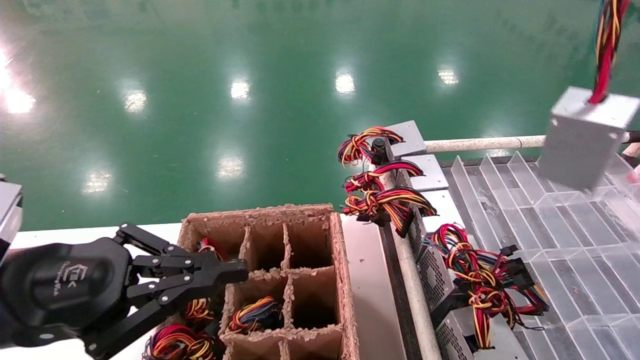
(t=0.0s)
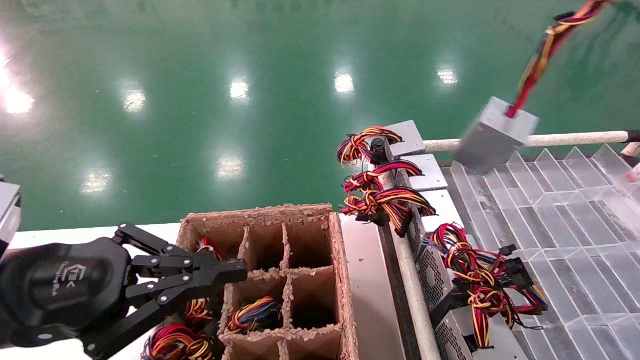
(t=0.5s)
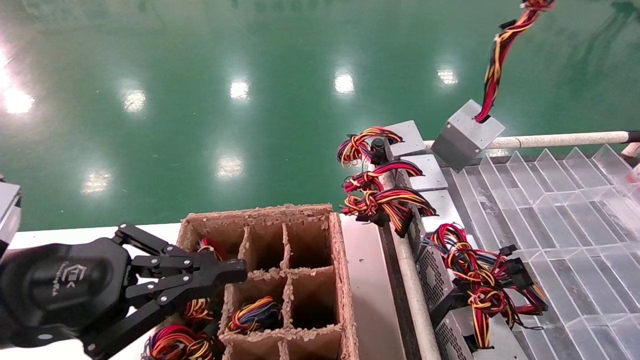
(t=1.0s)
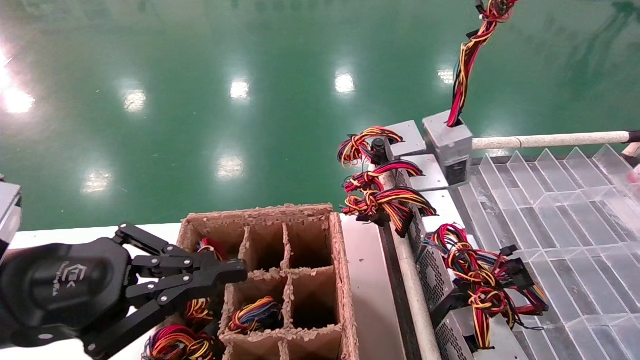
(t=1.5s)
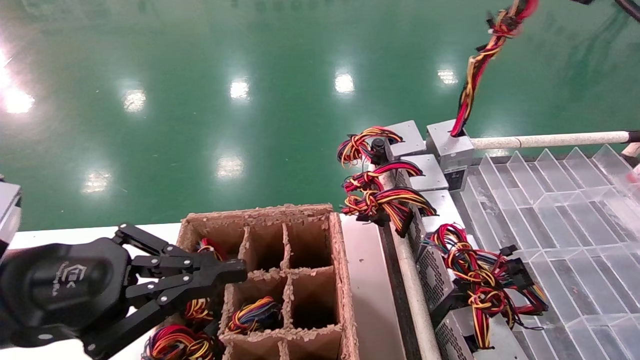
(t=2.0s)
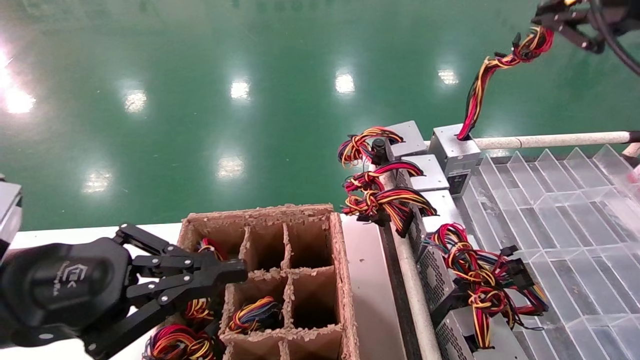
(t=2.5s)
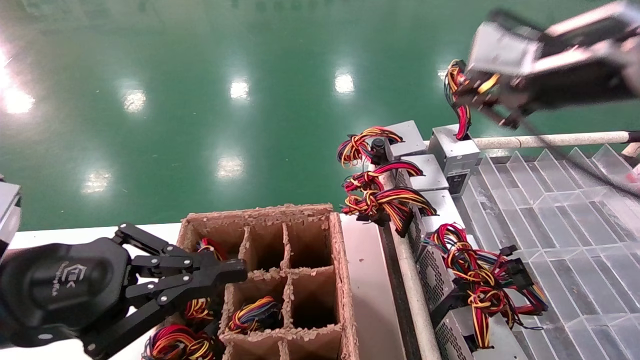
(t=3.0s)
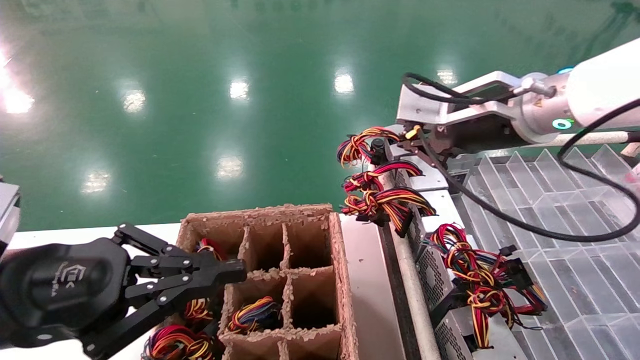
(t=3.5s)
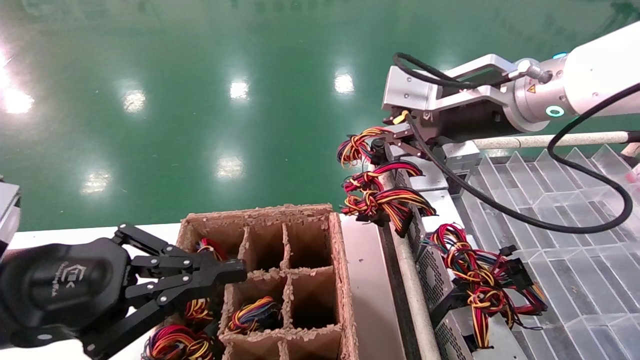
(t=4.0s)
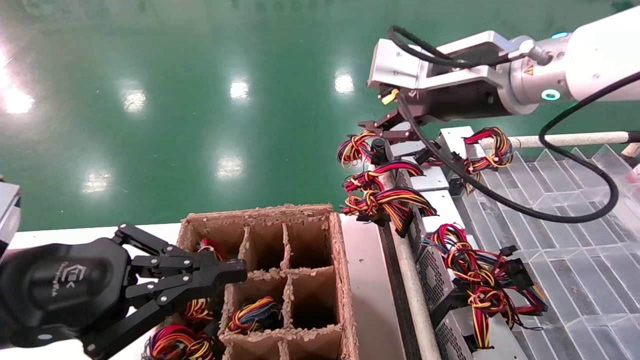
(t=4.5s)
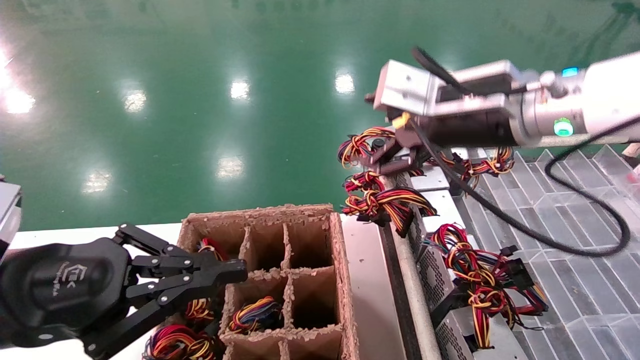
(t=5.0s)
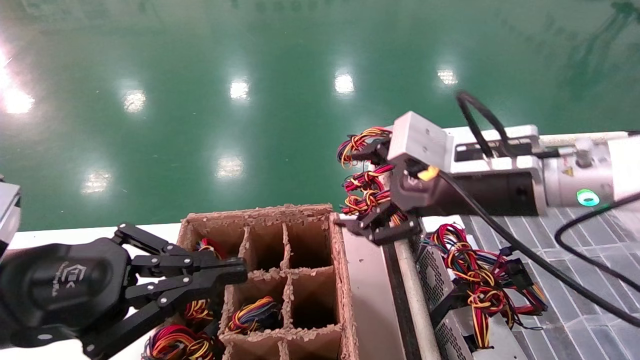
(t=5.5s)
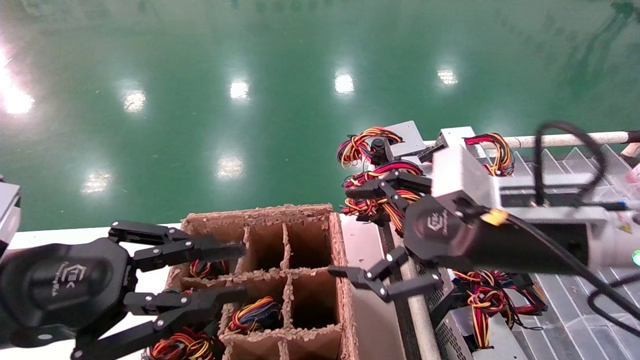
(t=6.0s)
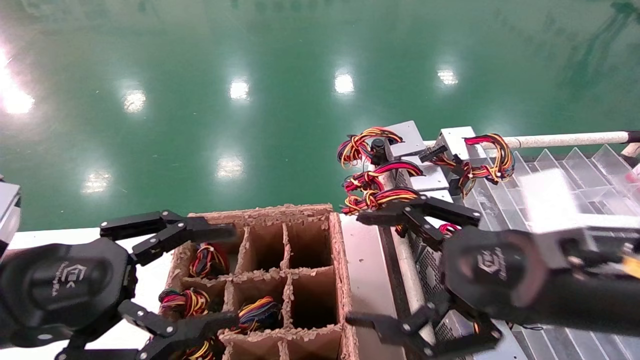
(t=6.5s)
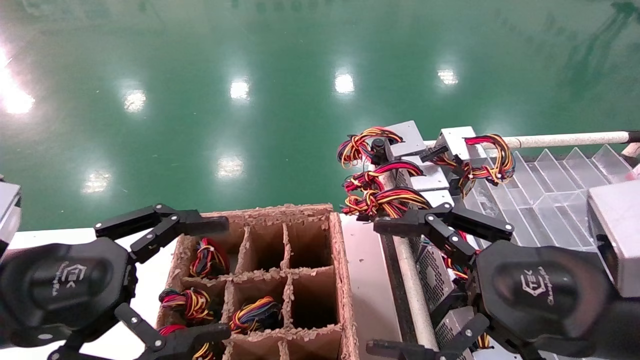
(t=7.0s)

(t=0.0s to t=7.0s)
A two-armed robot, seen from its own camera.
Step, t=0.0s - t=3.5s: Place the main unit power supply in the designated area.
t=0.0s - t=2.0s: The right gripper goes approximately 10 cm forward and downward.
t=2.0s - t=3.5s: The right gripper travels downward, forward and to the left by approximately 20 cm.
t=3.5s - t=5.0s: The right gripper opens up.
t=5.0s - t=7.0s: The left gripper opens its fingers, while the right gripper shifts some 20 cm backward, downward and to the right.

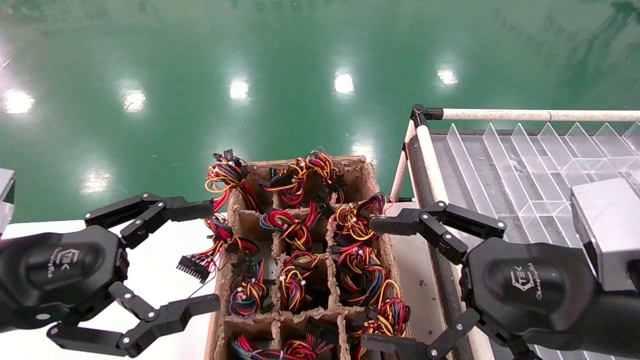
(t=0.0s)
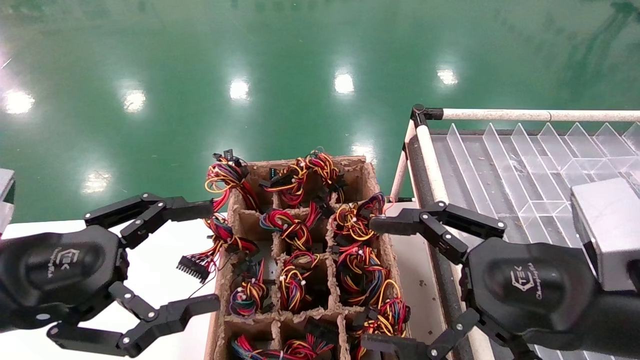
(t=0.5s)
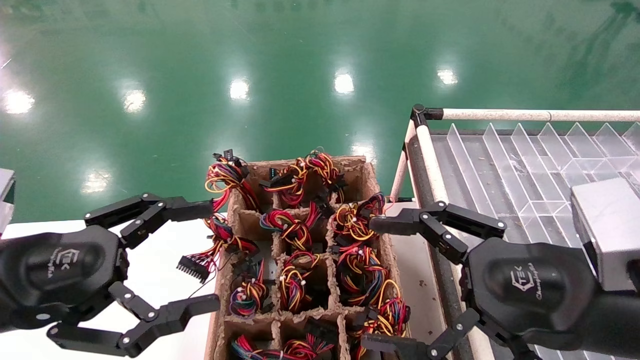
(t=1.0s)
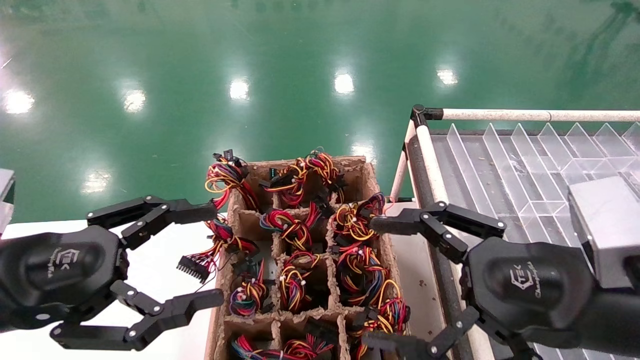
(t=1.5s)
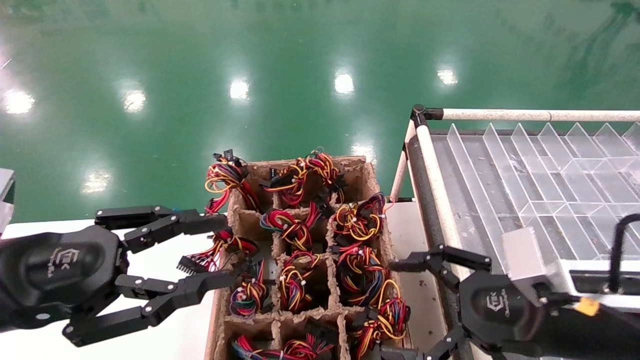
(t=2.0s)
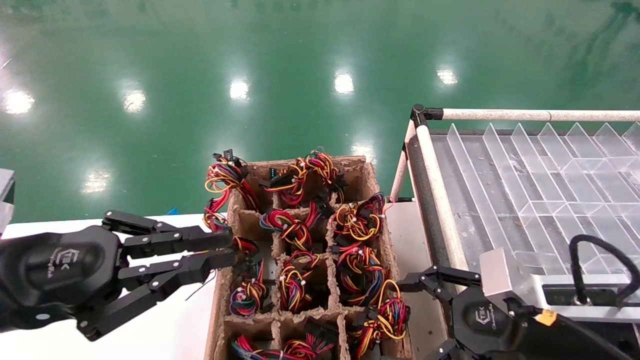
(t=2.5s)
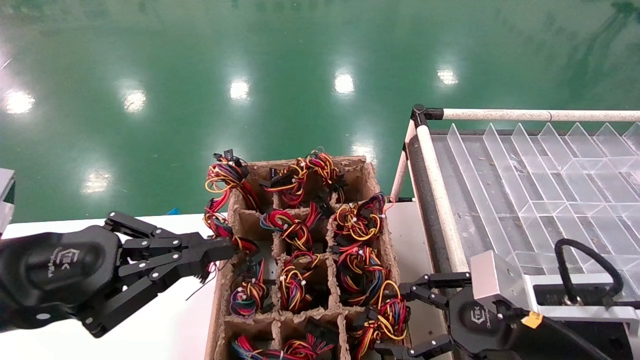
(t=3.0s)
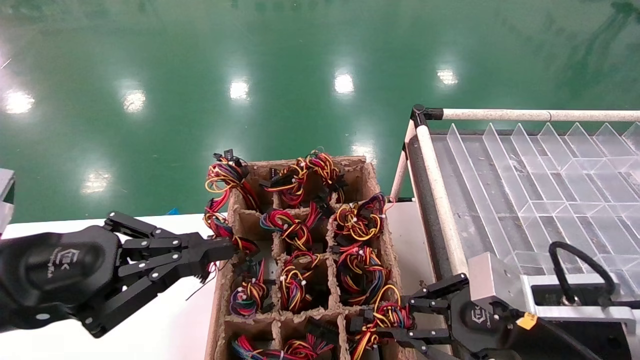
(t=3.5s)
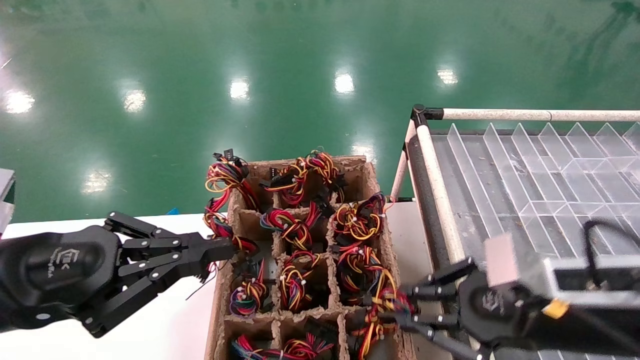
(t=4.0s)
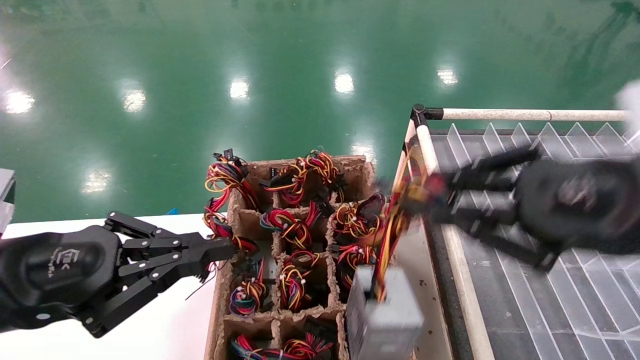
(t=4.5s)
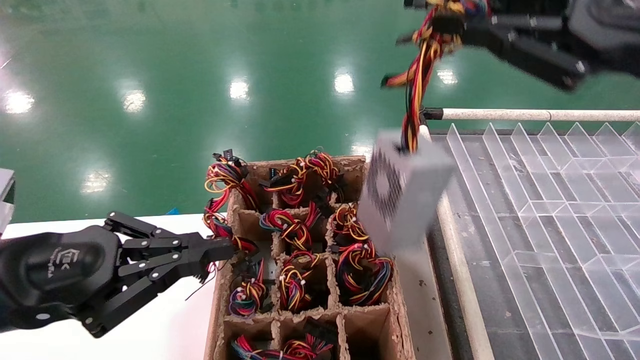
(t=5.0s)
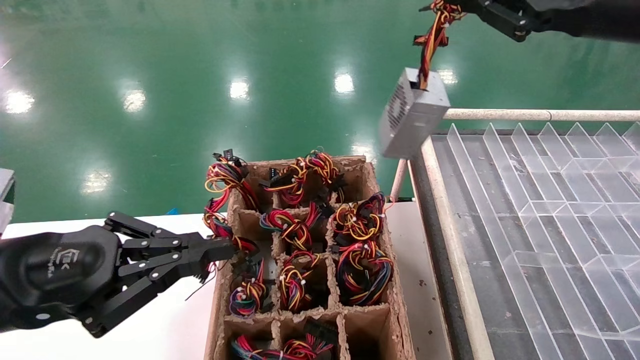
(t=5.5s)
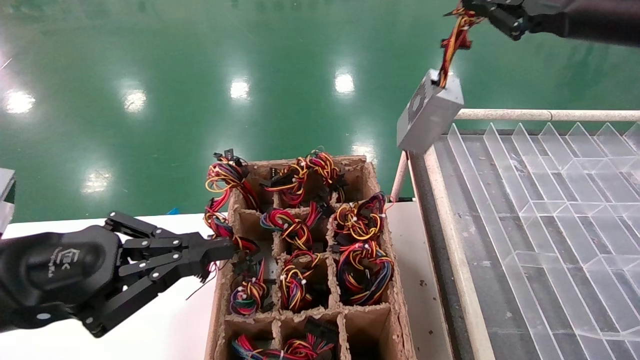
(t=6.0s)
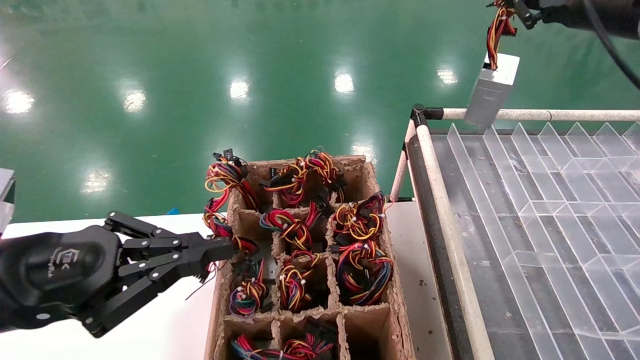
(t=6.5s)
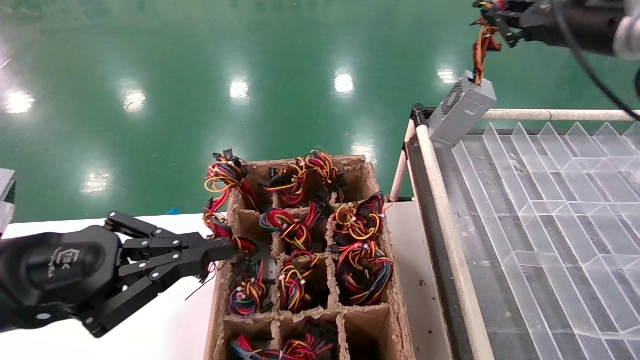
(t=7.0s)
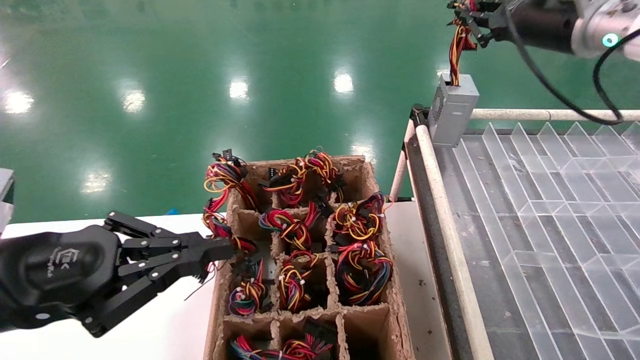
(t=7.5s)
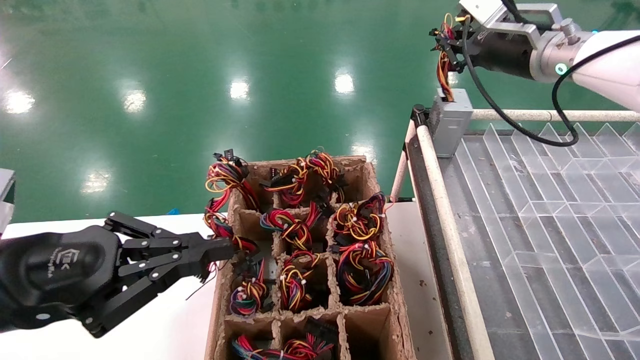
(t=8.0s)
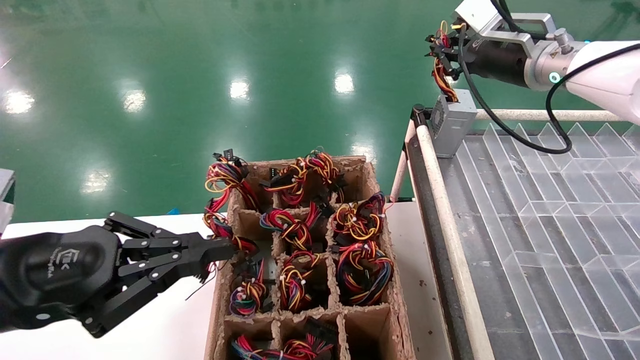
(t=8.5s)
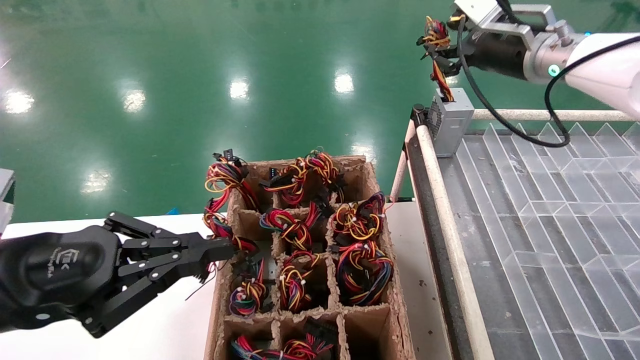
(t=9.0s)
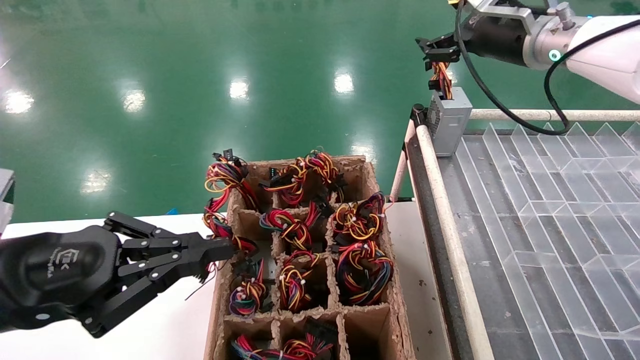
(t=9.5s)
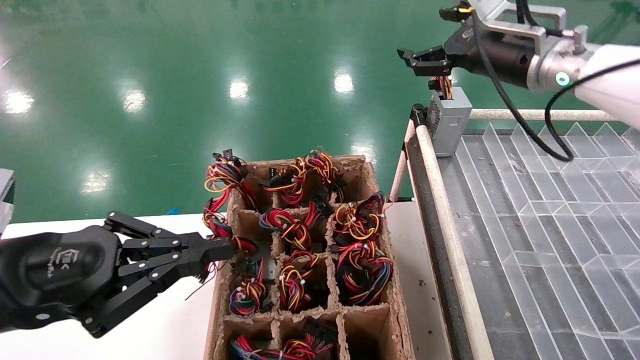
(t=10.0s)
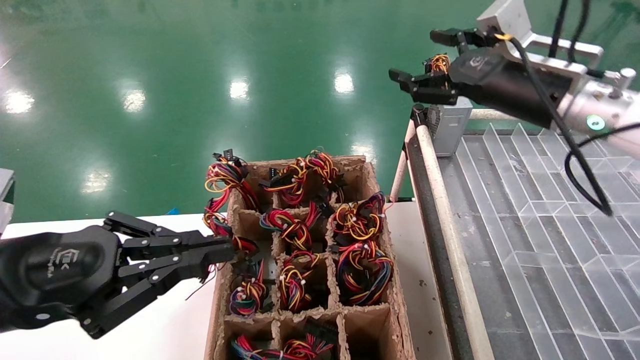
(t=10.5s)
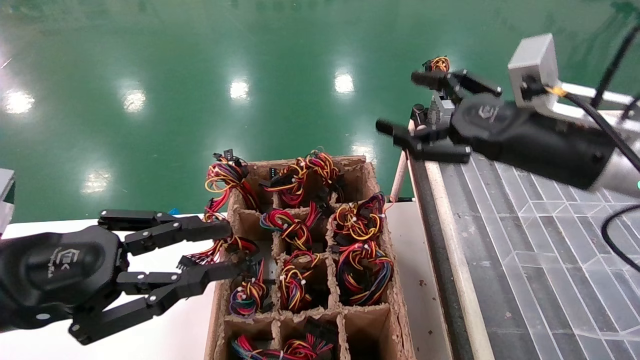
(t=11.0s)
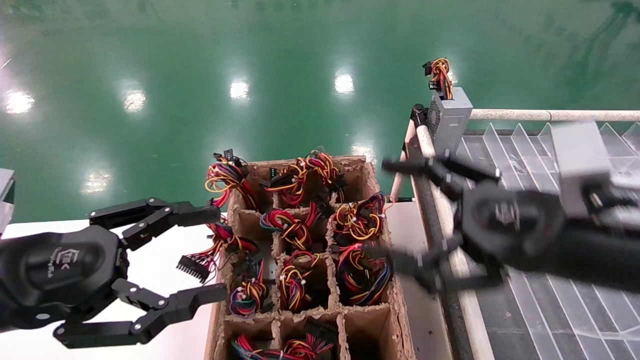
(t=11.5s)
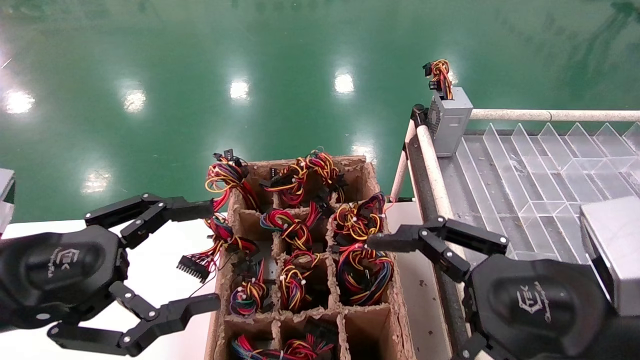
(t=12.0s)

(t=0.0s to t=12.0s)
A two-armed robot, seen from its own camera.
Step, t=2.0s - t=3.5s: Grab the main unit power supply from the containment box.
Step, t=4.0s - t=9.5s: Place the main unit power supply in the designated area.
t=0.0s - t=2.0s: The right gripper moves roughly 5 cm. Meanwhile the left gripper closes.
t=2.0s - t=4.0s: The left gripper closes its fingers; the right gripper closes its fingers.
t=4.0s - t=6.0s: The right gripper heads upward and forward, covering roughly 30 cm.
t=6.0s - t=8.0s: The right gripper is displaced forward and to the left by roughly 10 cm.
t=8.0s - t=10.0s: The right gripper opens its fingers.
t=10.0s - t=12.0s: The left gripper opens its fingers; the right gripper goes roughly 30 cm backward and downward.

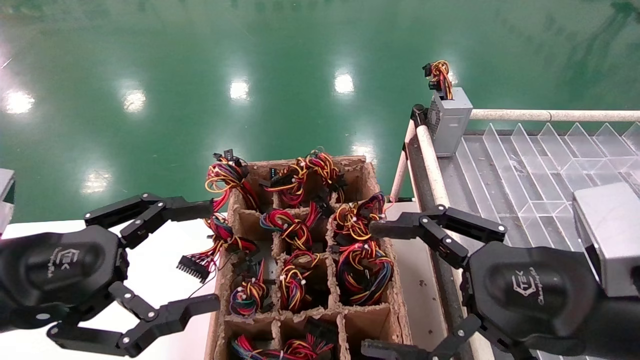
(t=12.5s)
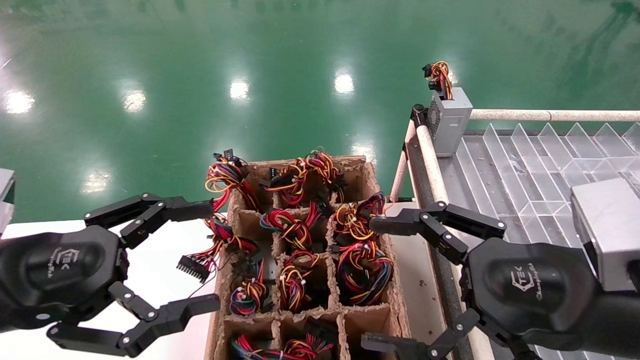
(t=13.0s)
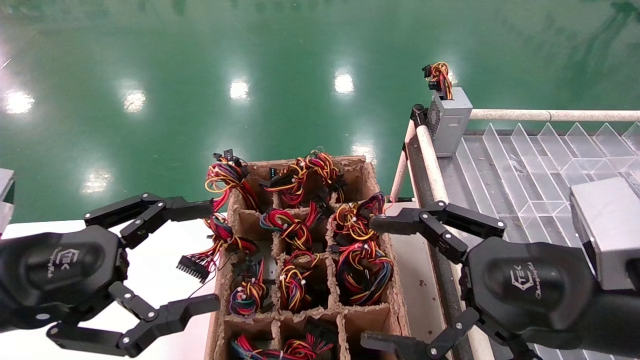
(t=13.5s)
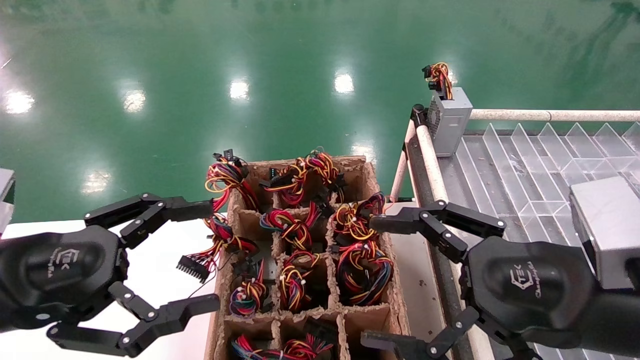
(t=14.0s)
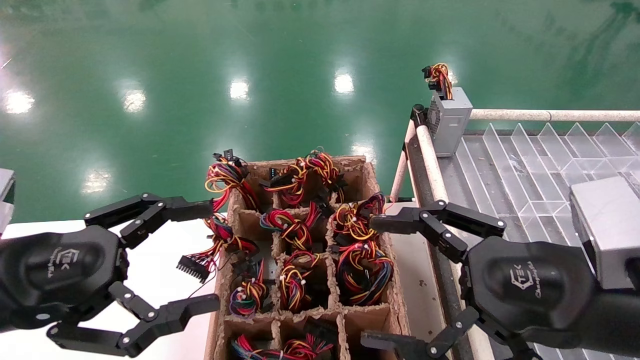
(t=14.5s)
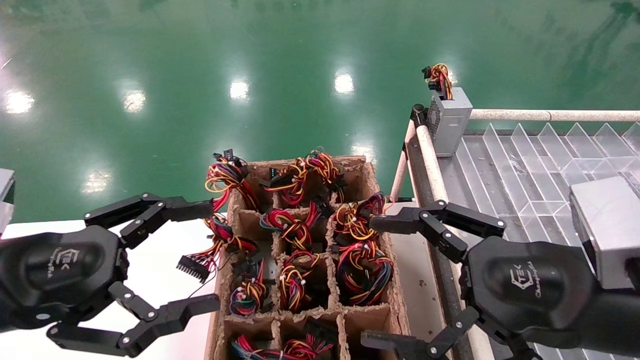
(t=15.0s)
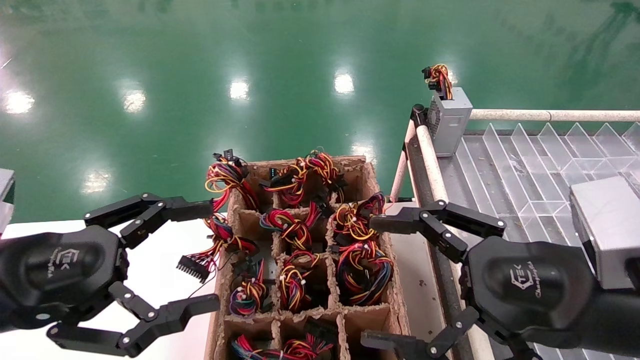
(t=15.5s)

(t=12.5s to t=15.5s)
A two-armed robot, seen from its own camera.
t=12.5s - t=15.5s: Neither gripper changes place.
